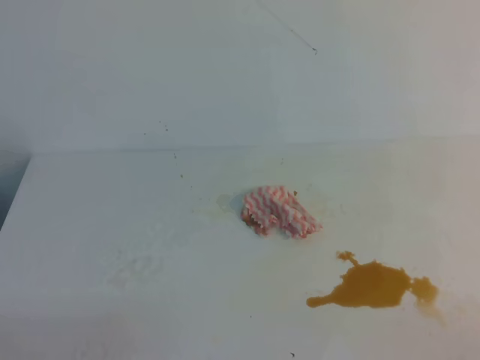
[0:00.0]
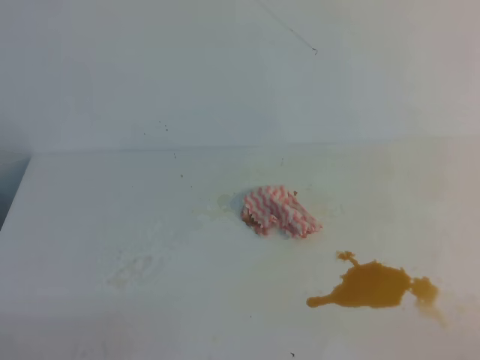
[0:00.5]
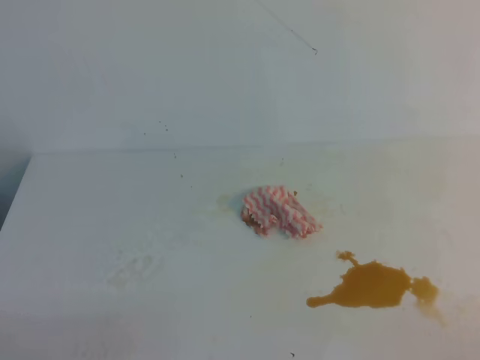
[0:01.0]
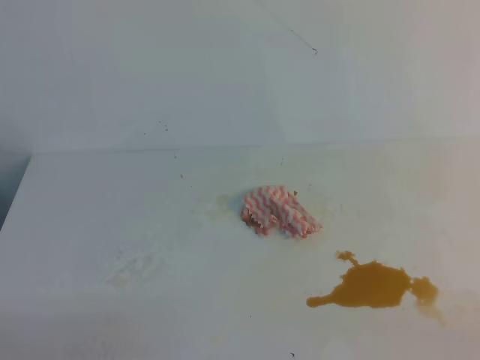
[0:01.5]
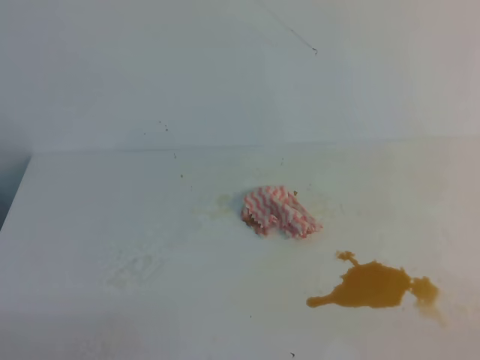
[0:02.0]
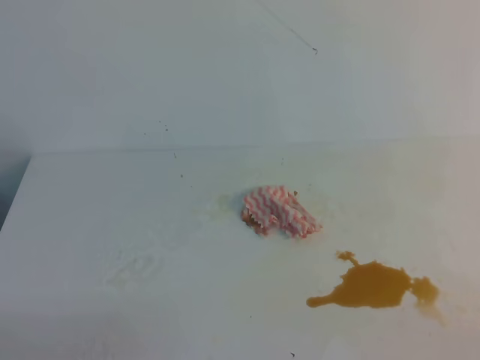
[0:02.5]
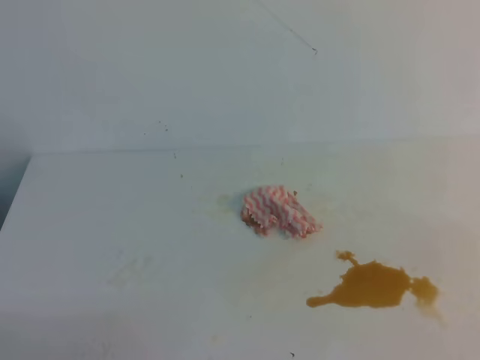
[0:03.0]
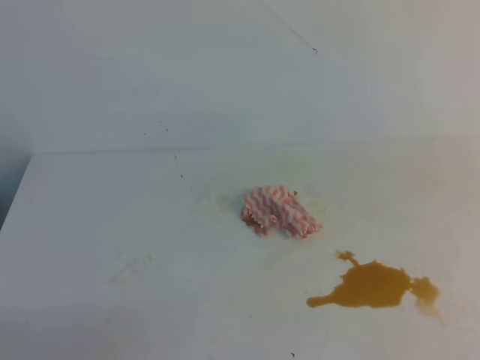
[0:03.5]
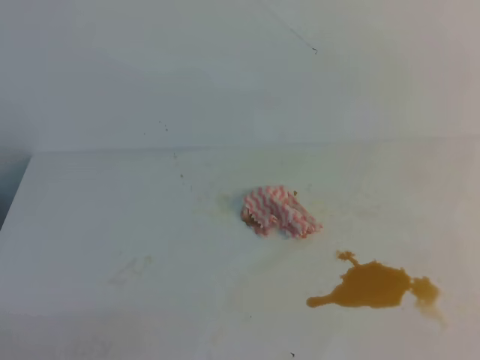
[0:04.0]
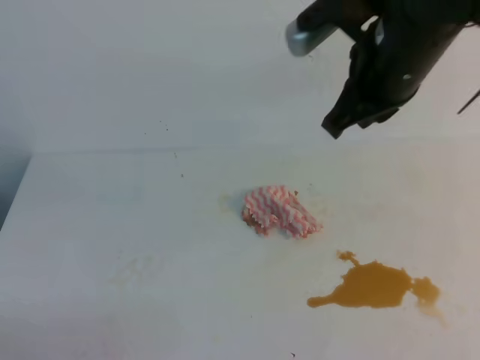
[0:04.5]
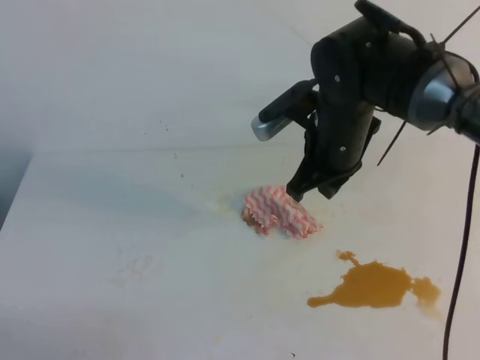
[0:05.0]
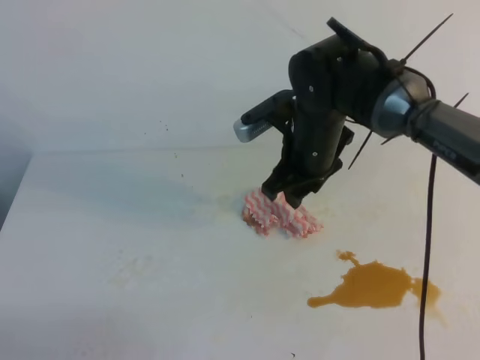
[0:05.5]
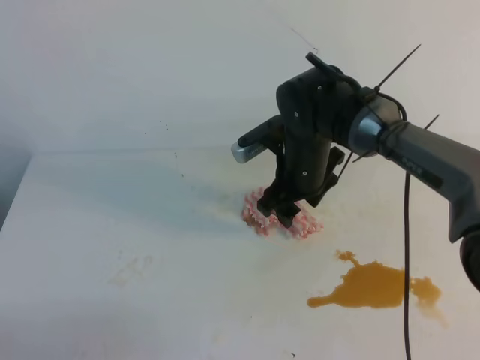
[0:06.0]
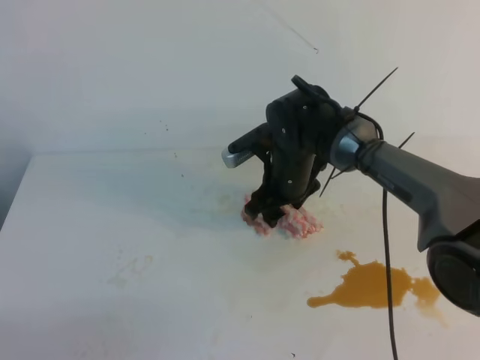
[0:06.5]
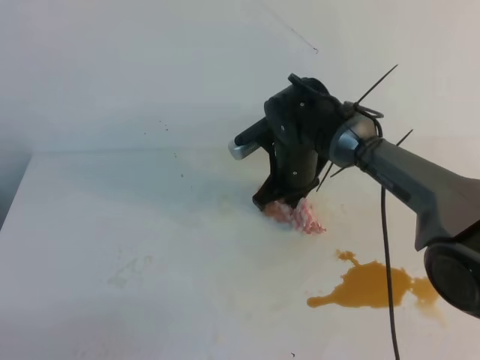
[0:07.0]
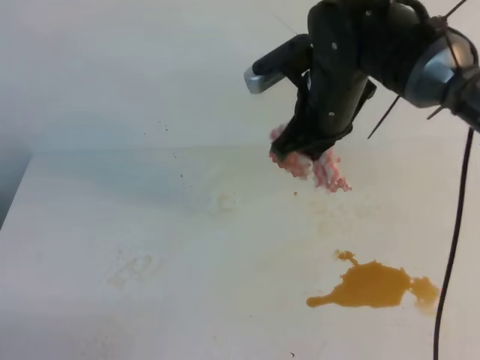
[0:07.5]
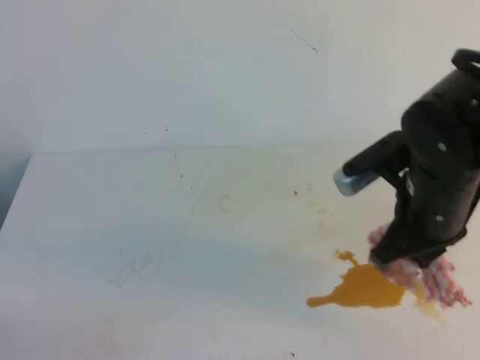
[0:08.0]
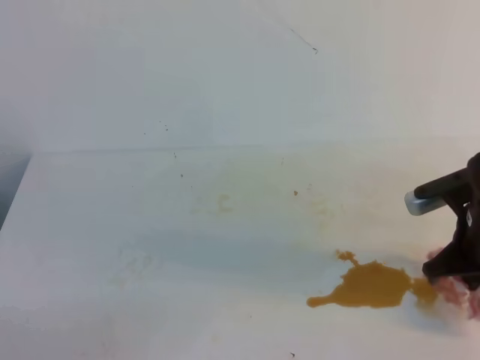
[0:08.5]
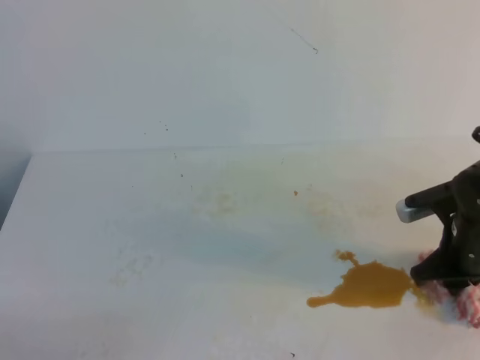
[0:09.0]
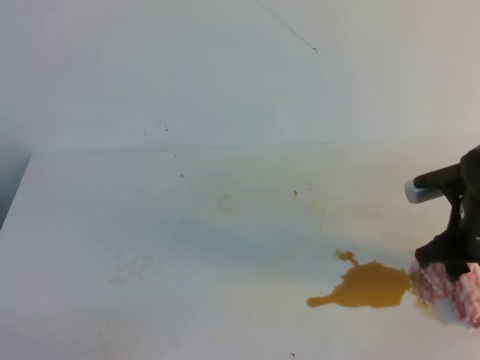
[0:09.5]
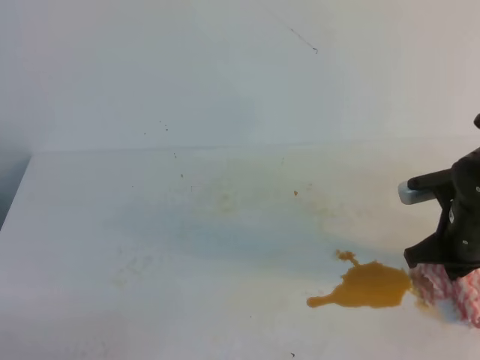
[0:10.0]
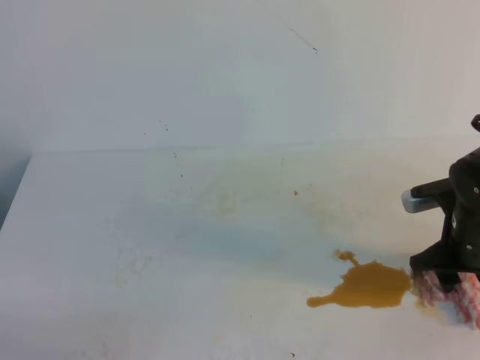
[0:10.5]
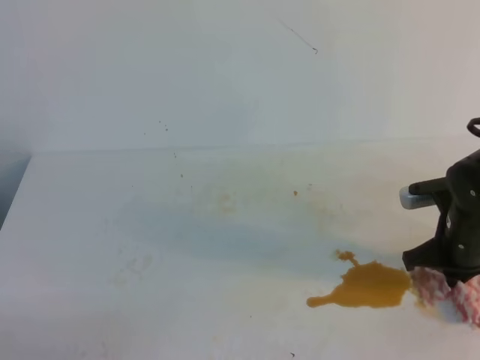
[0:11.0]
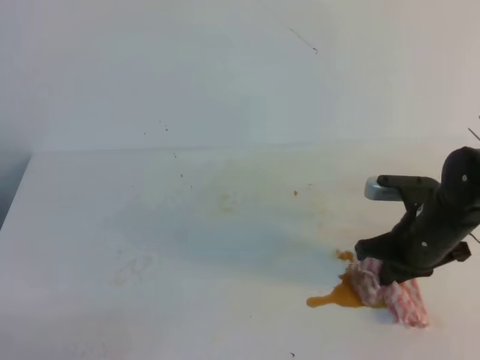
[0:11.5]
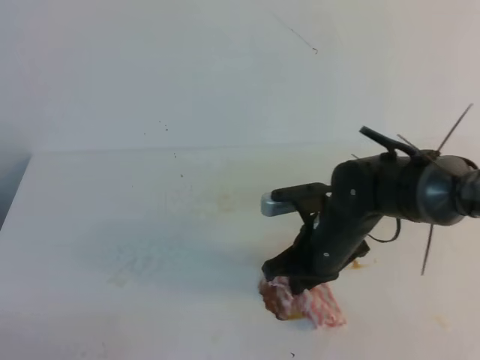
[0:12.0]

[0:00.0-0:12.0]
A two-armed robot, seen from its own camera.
0:04.0 to 0:06.0: The right gripper is displaced downward, forward and to the left by approximately 35 cm, and opens up.
0:06.0 to 0:08.0: The right gripper is displaced backward, to the right and upward by approximately 15 cm, and closes its fingers.
0:08.0 to 0:10.0: The right gripper moves downward and to the right, about 15 cm, and opens, then closes once more.
0:10.0 to 0:12.0: The right gripper moves to the left, approximately 15 cm, and opens and closes again.

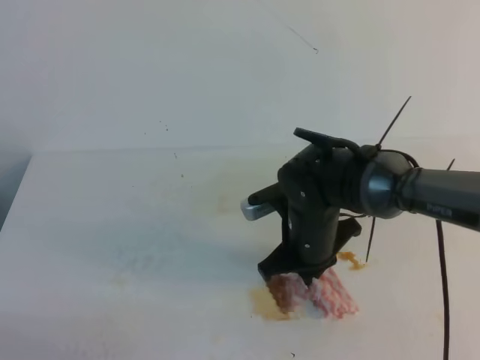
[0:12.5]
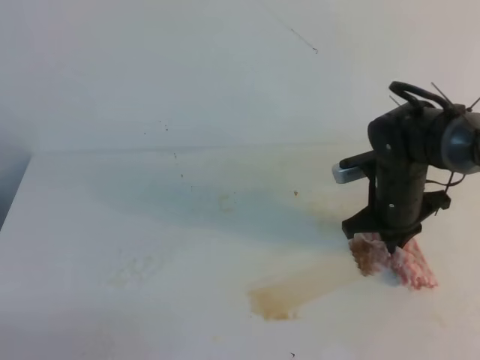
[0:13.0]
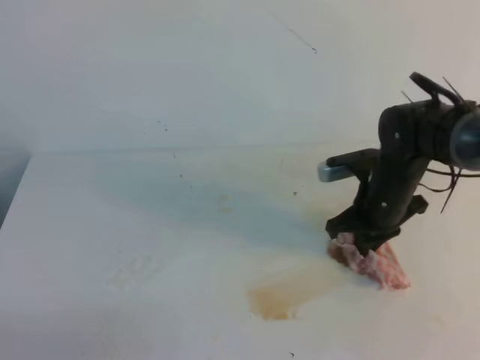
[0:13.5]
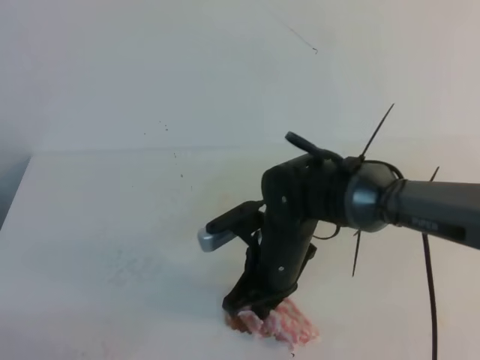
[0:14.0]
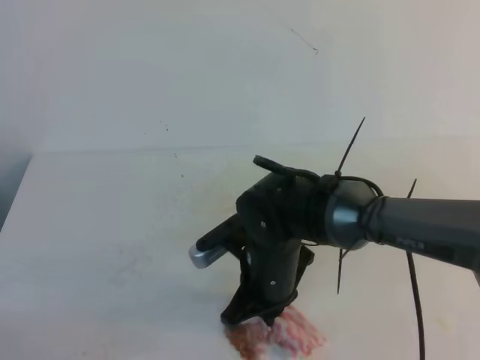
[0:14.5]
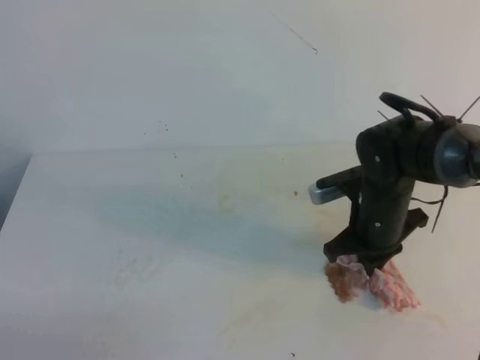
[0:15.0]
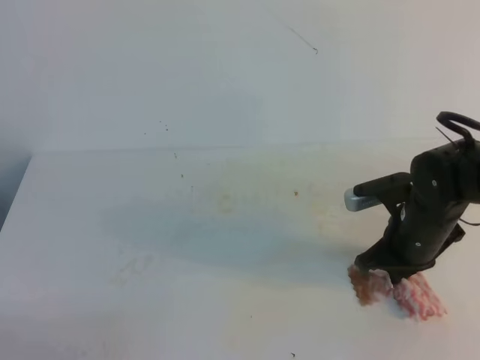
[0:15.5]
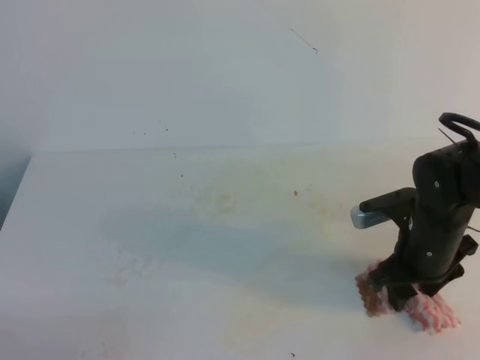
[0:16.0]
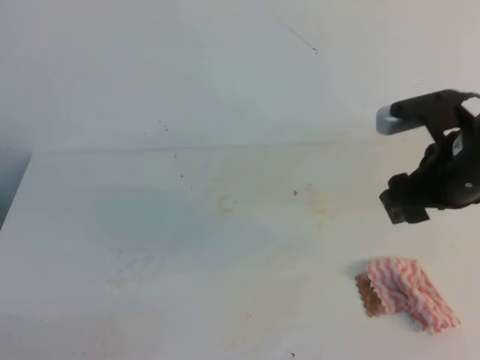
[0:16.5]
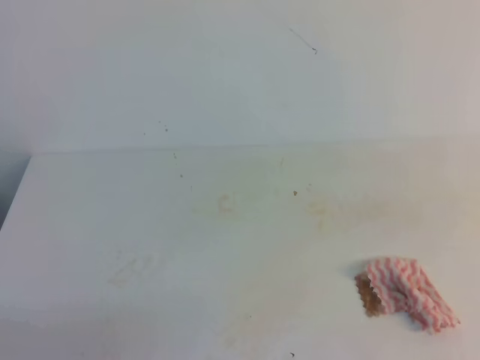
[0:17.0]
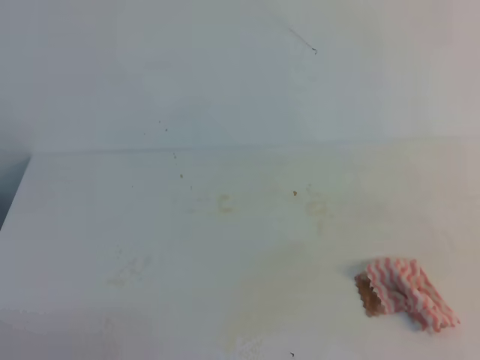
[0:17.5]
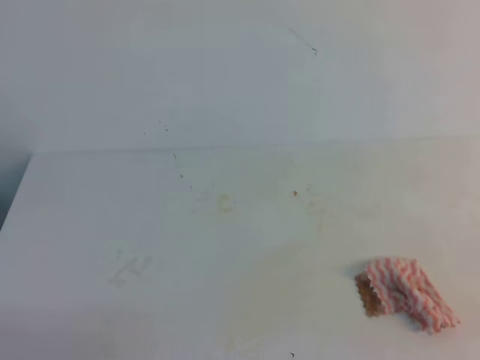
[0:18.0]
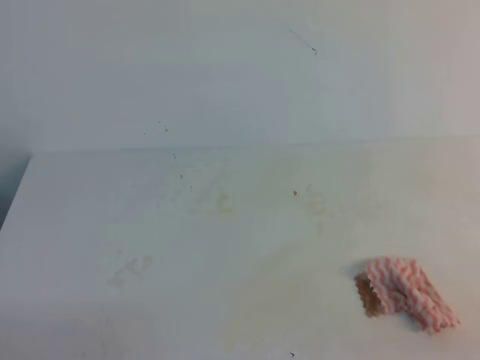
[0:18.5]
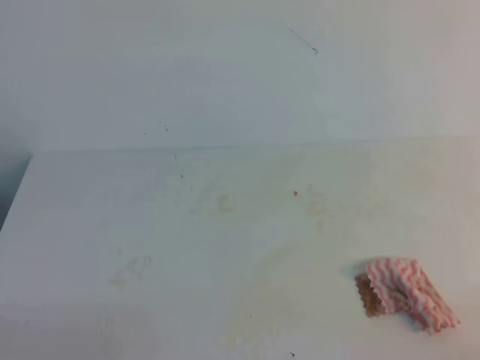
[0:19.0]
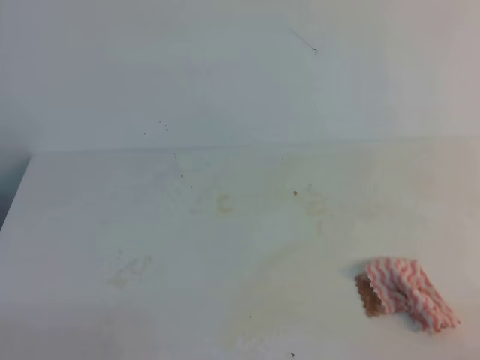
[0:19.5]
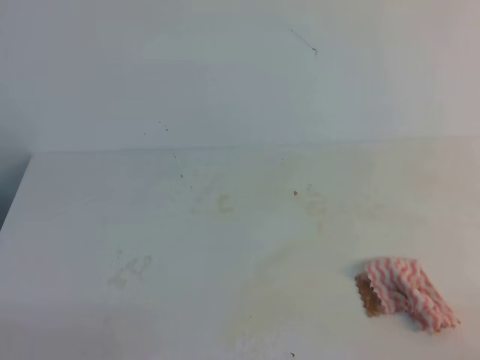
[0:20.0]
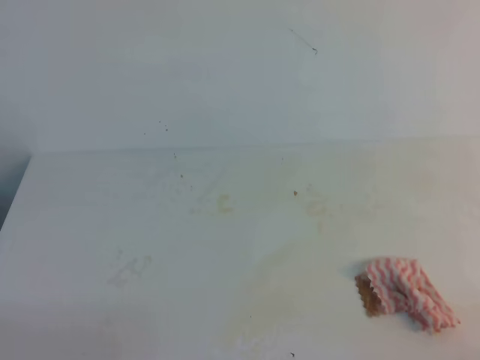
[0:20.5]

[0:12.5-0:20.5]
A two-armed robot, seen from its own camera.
0:12.5 to 0:14.5: The right gripper travels to the right and back again, some 10 cm each way.
0:14.5 to 0:16.5: The right gripper heads to the right and upward, covering some 20 cm, and opens up.
0:16.5 to 0:18.5: The right gripper goes about 25 cm backward, and closes its fingers.

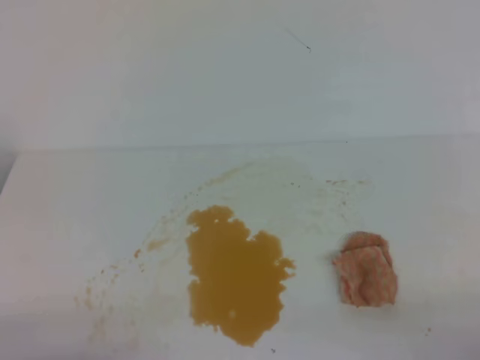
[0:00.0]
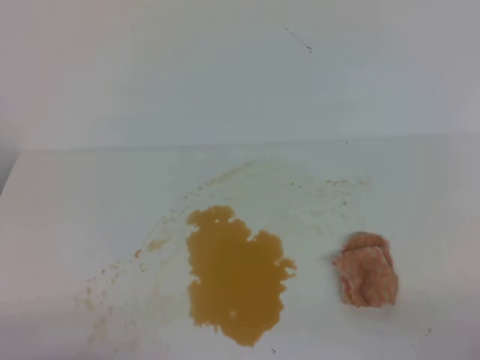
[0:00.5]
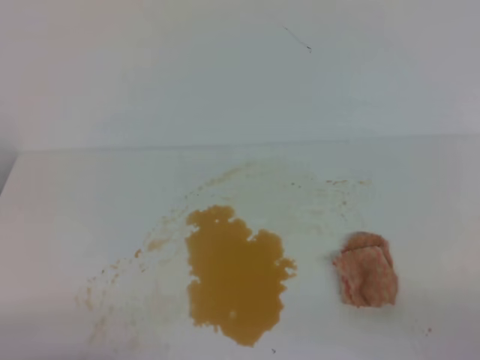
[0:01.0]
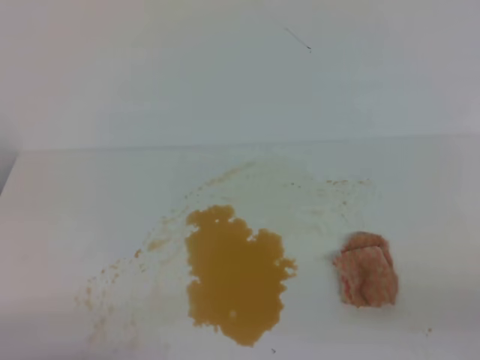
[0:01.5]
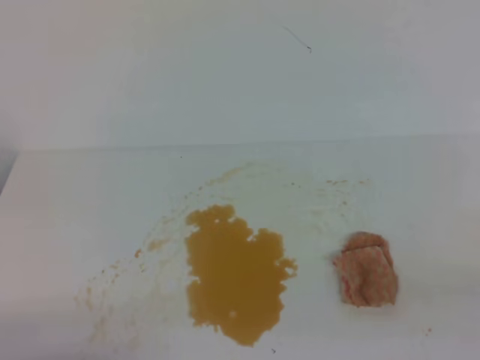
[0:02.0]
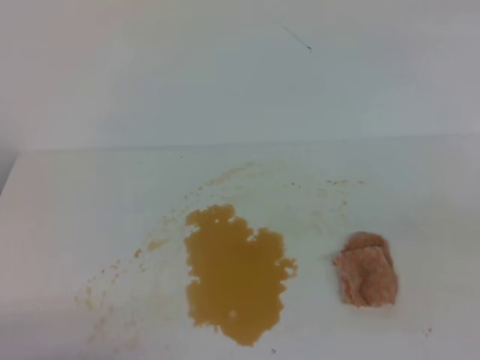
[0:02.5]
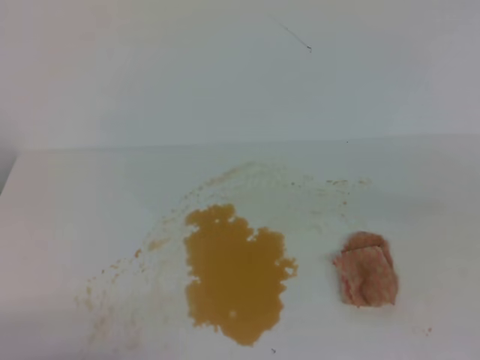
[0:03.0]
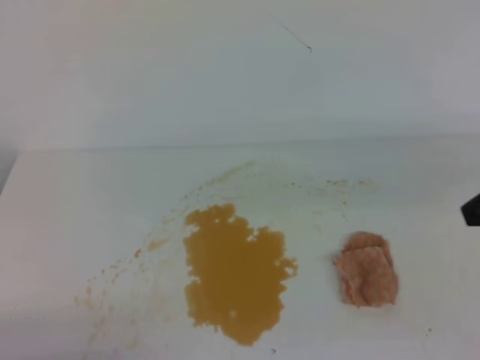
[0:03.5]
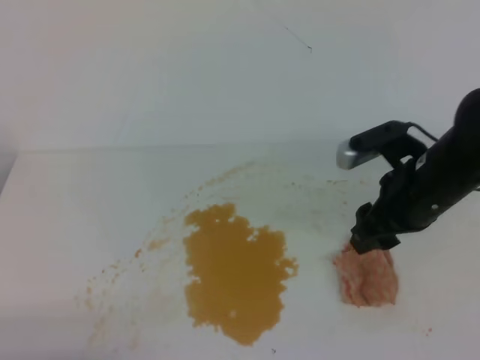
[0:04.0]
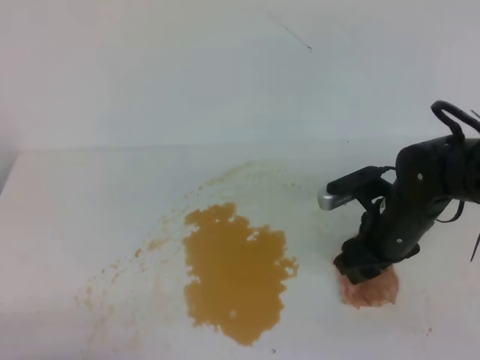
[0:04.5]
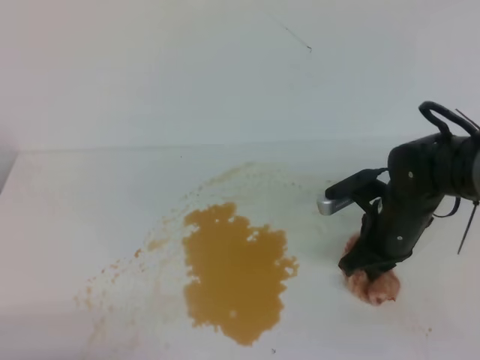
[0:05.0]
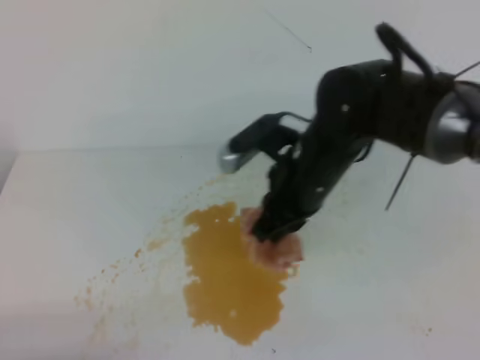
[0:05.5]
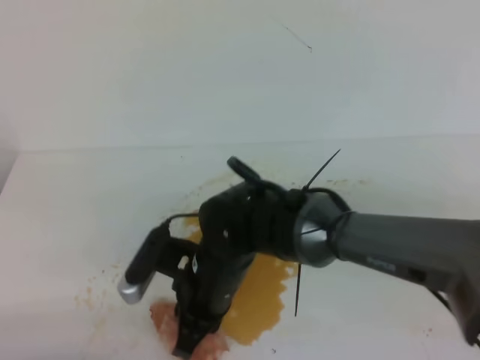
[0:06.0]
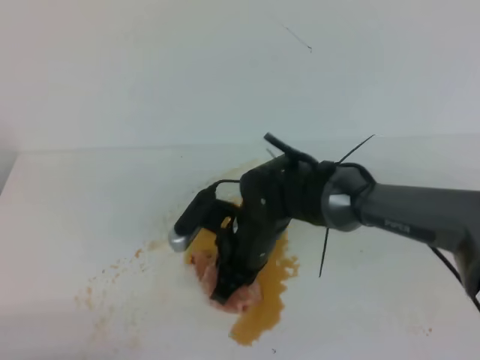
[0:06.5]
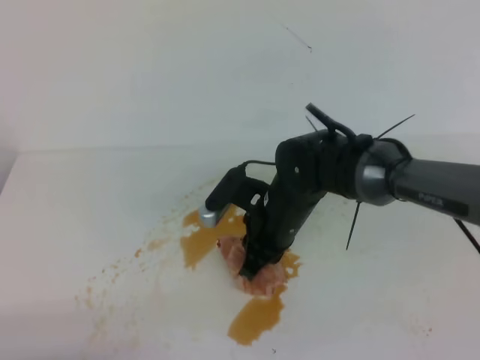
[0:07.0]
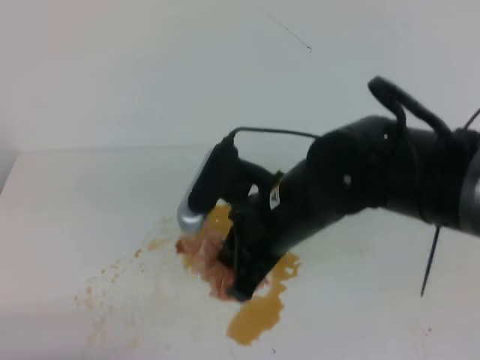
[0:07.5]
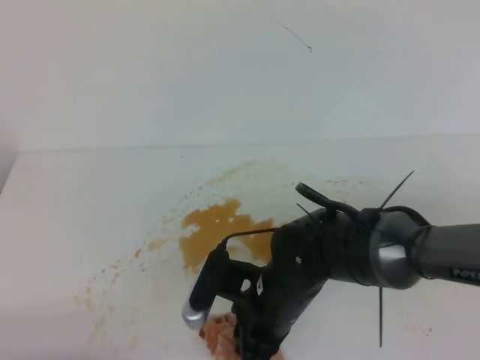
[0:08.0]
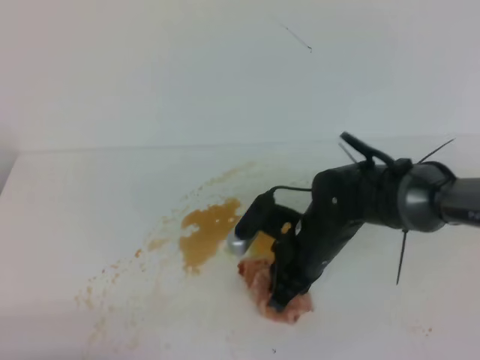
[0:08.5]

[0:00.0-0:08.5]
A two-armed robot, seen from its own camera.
0:02.0 to 0:04.0: The right gripper moves forward and to the left, approximately 30 cm, and opens its fingers.
0:04.0 to 0:06.5: The right gripper travels to the left and downward by some 20 cm, and closes.
0:06.5 to 0:08.5: The right gripper goes approximately 5 cm to the right, and travels backward and back again, roughly 10 cm each way.
